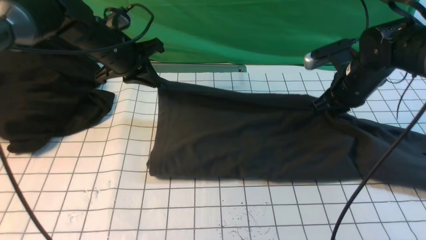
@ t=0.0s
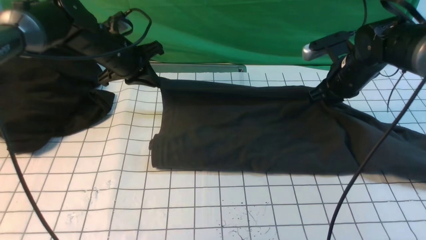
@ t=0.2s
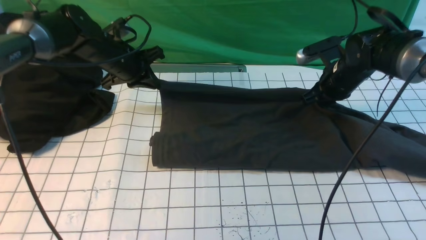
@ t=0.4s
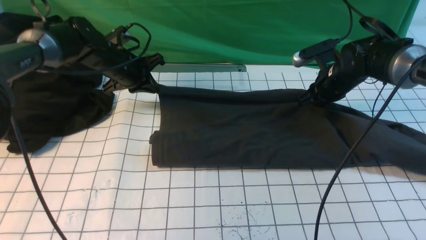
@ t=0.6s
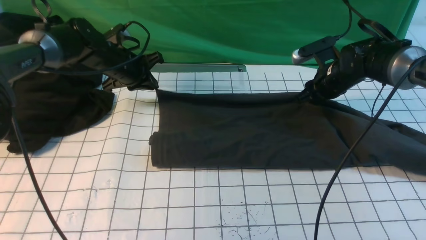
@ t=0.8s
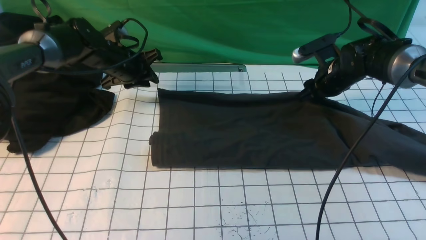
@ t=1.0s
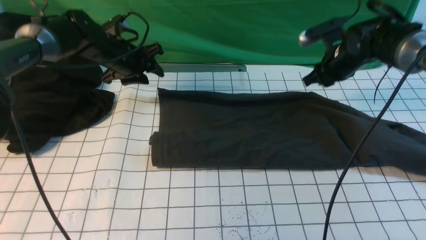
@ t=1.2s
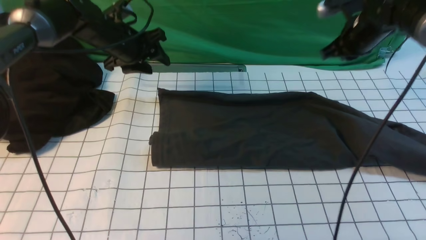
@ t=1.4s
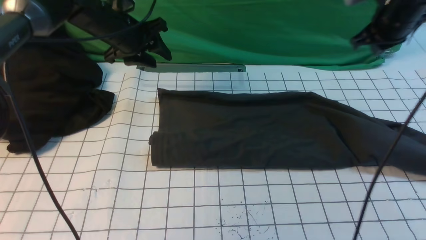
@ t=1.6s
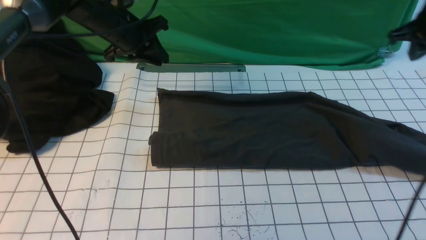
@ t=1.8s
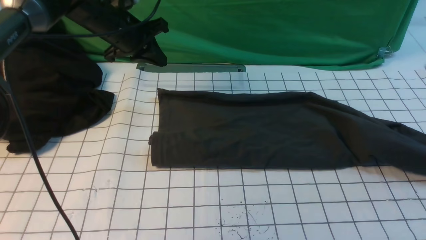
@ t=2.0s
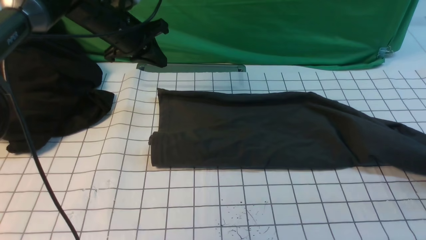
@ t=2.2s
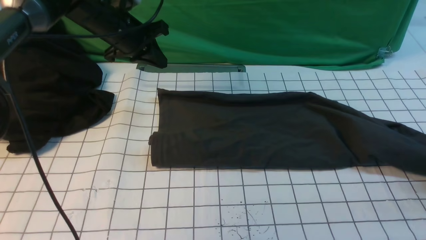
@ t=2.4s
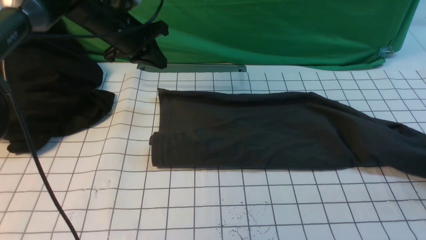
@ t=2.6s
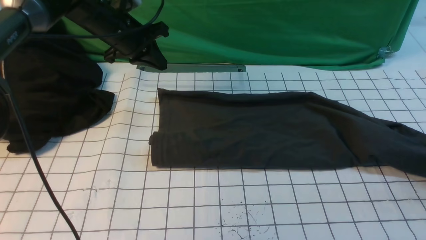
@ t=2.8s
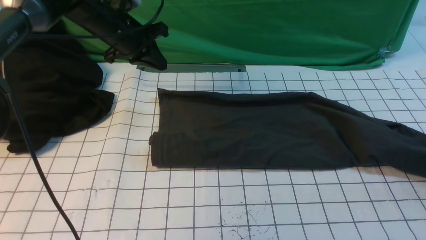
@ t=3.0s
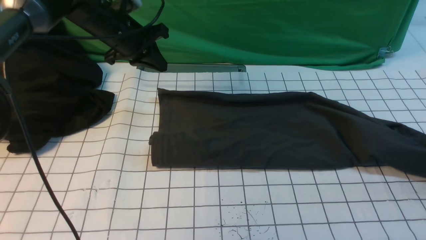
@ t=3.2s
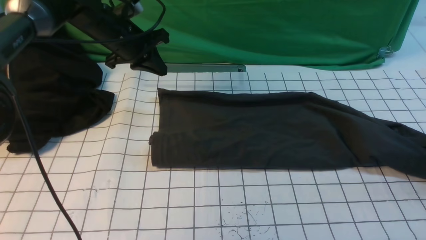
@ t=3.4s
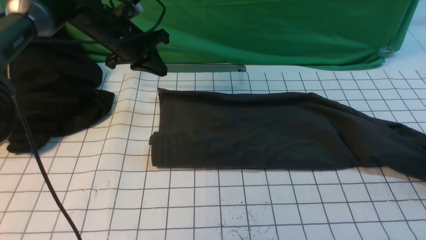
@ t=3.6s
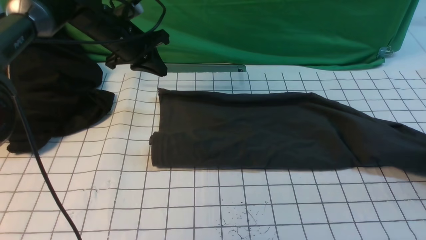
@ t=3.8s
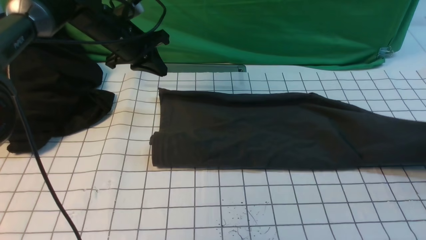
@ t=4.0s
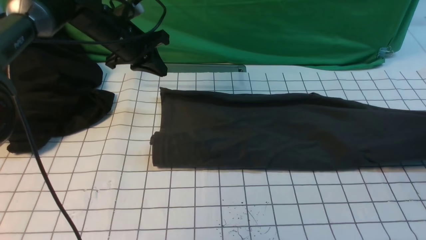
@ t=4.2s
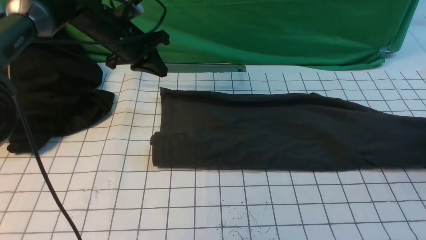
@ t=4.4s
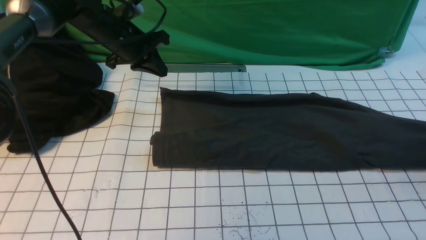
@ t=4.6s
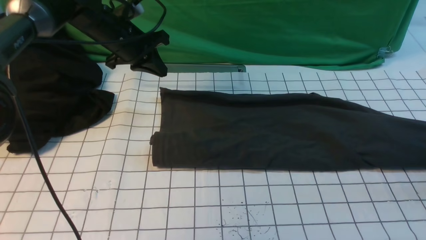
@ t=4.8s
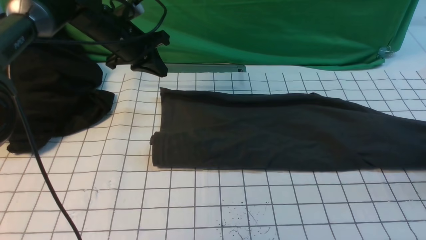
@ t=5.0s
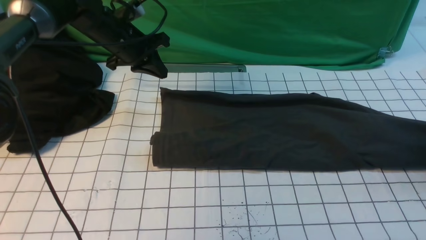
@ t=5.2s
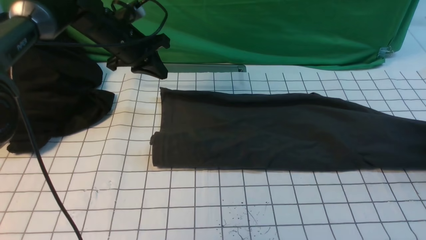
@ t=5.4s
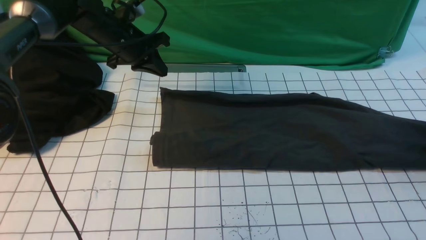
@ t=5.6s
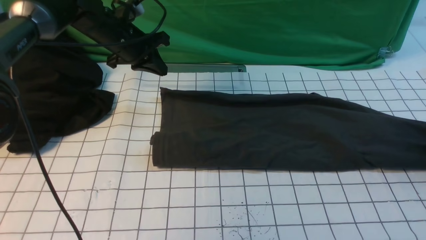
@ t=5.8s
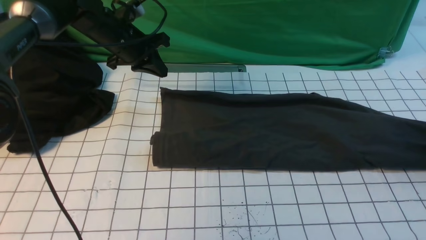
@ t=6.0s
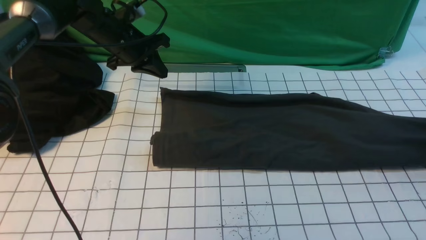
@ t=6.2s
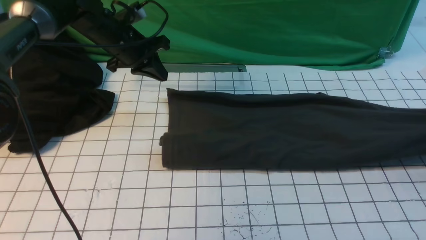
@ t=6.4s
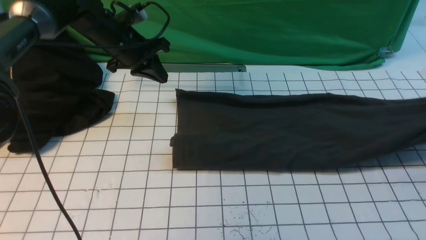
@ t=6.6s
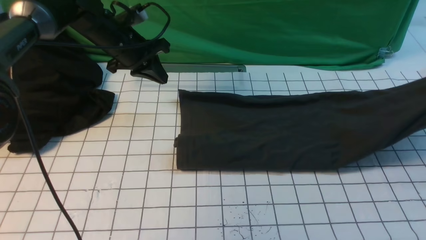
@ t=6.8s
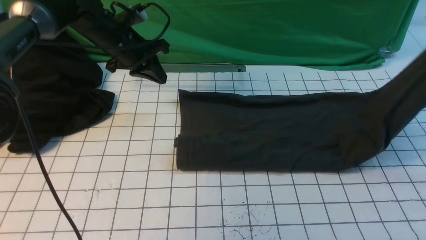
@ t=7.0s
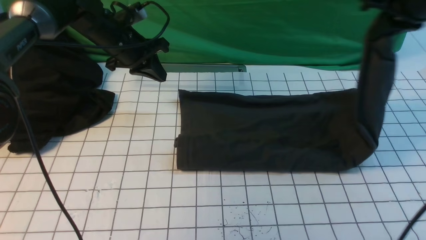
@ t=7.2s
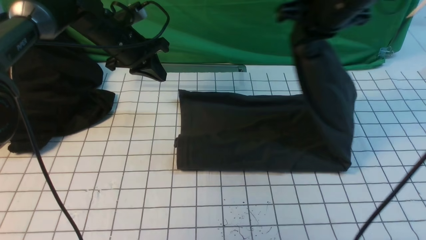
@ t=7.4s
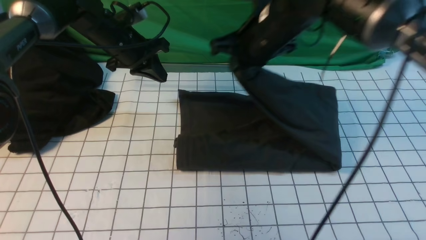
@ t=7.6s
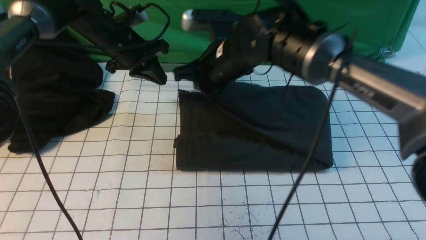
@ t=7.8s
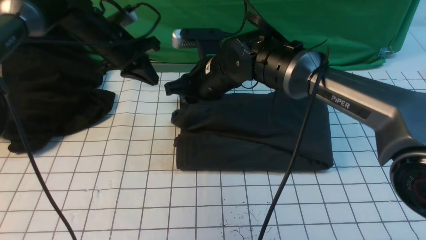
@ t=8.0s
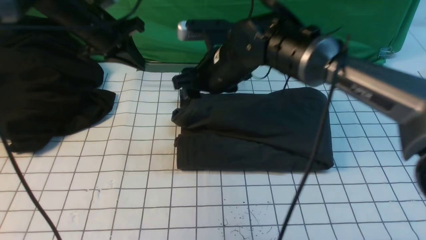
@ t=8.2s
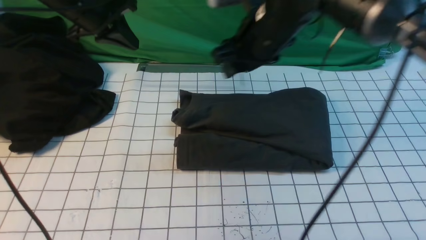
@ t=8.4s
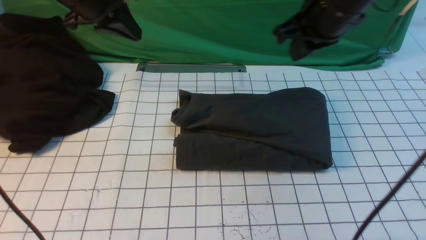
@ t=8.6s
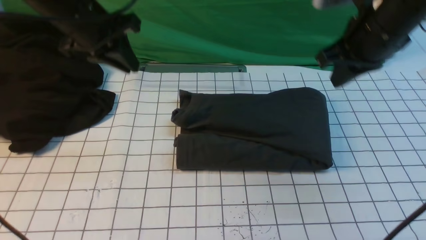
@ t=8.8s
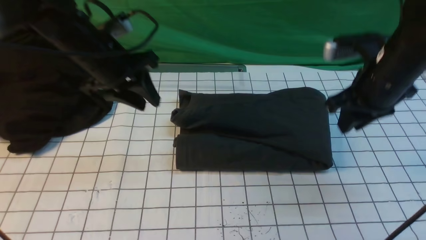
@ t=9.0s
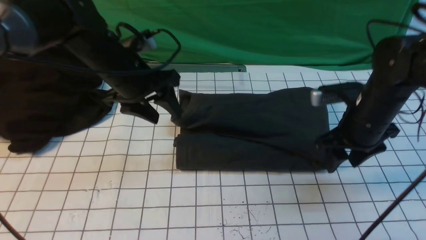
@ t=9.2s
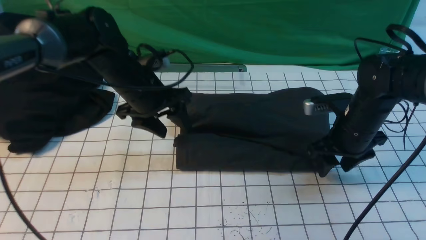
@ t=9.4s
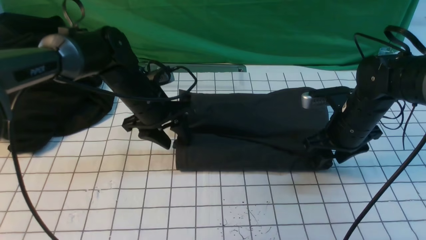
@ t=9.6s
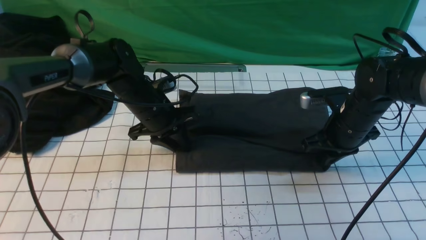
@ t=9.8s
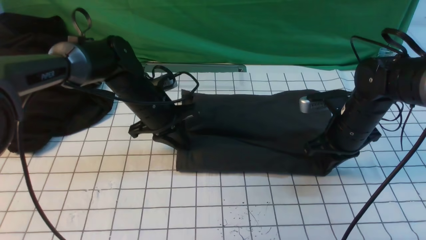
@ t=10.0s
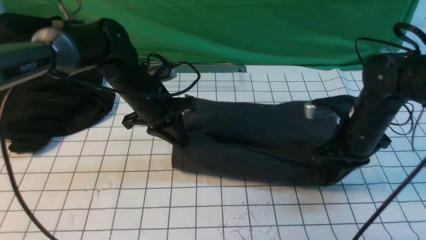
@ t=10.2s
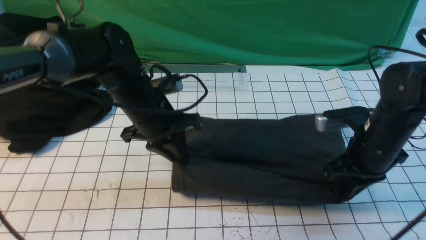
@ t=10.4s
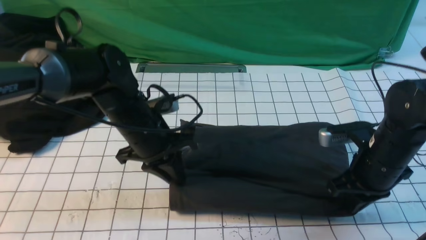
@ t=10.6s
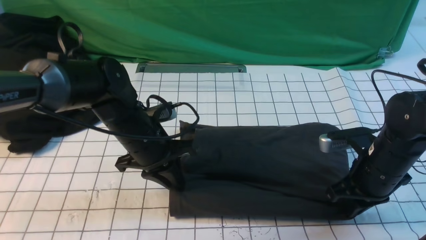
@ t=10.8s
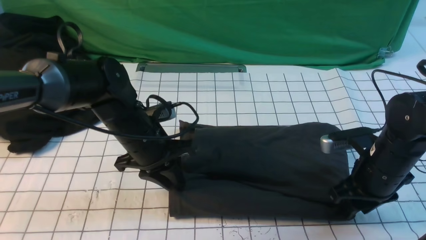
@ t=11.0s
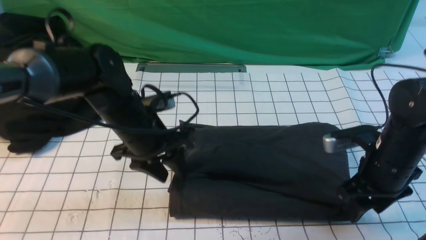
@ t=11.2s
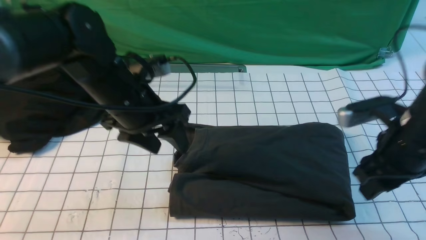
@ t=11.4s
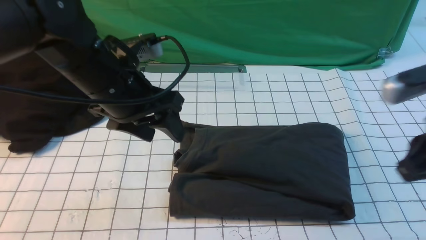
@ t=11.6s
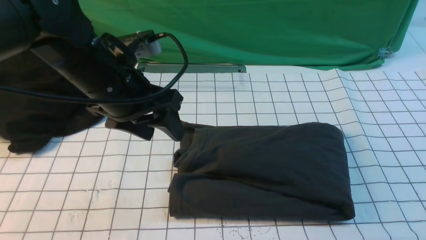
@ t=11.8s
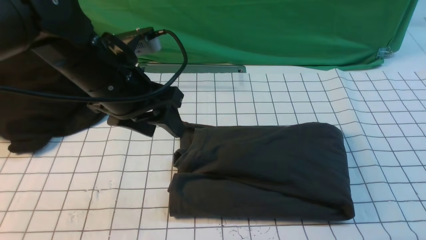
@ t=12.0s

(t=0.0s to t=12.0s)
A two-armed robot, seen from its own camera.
Step, t=1.2s - t=6.0s: use the right arm to clamp the right edge of the fabric.
Step, t=6.2s - t=8.0s: use the right arm to drag the right edge of the fabric to the left and folds it over the left edge.
t=0.0s - t=1.6s: The right gripper moves upward, to the right and forward, approximately 15 cm, and opens and closes again, while the left gripper opens.
t=1.6s - t=3.0s: The left gripper closes its fingers, while the right gripper shifts some 20 cm to the right, downward and backward, and opens its fingers.
t=3.0s - t=4.4s: The right gripper closes, then opens again.
t=6.0s - t=7.6s: The right gripper moves to the left, approximately 40 cm.
t=7.6s - t=9.0s: The right gripper travels to the right by about 15 cm, and opens up; the left gripper is displaced backward by roughly 10 cm, and opens.
t=9.0s - t=10.4s: The right gripper shifts roughly 10 cm downward, and closes; the left gripper goes about 10 cm downward and to the right, and closes up.
t=10.4s - t=12.0s: The left gripper is displaced upward and backward by about 10 cm, and opens up. The right gripper shifts some 30 cm backward and upward, and opens, then closes again.

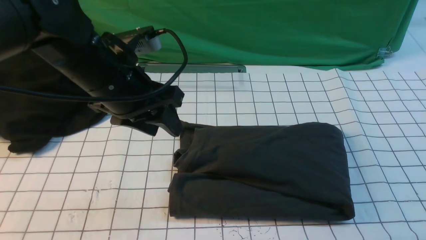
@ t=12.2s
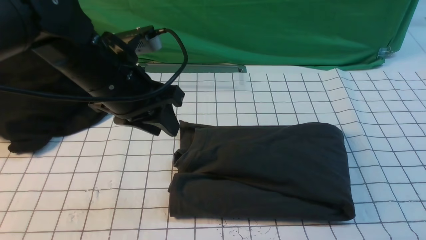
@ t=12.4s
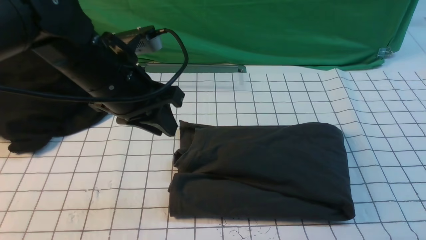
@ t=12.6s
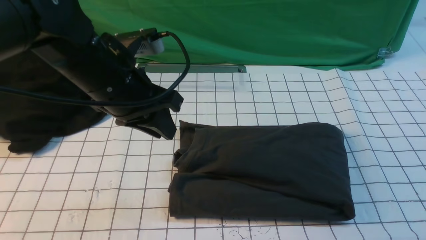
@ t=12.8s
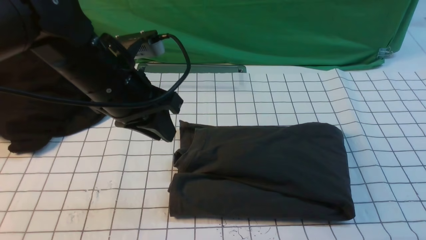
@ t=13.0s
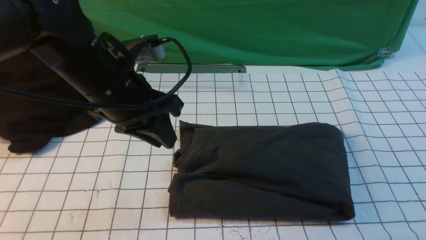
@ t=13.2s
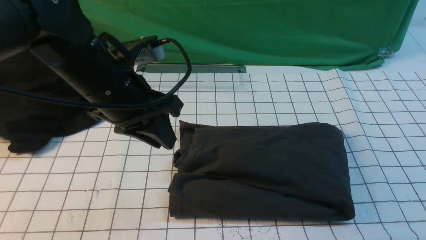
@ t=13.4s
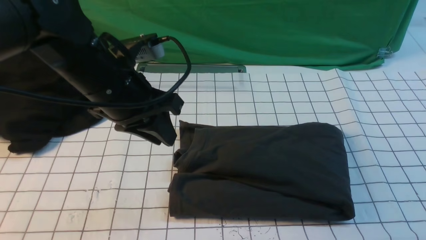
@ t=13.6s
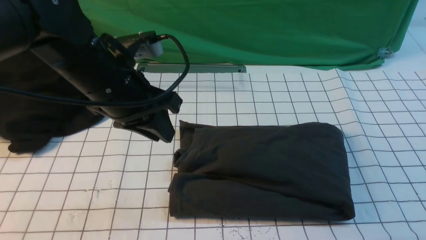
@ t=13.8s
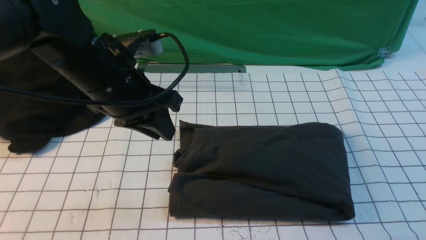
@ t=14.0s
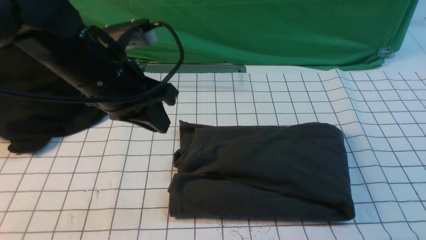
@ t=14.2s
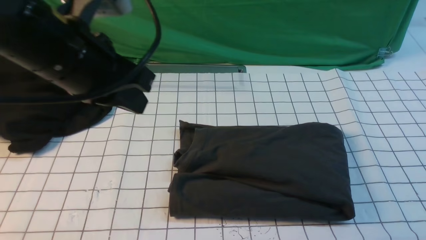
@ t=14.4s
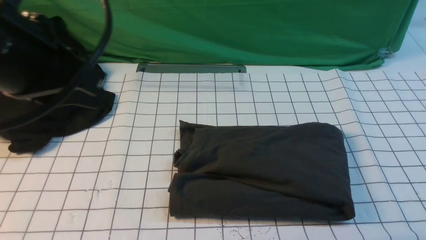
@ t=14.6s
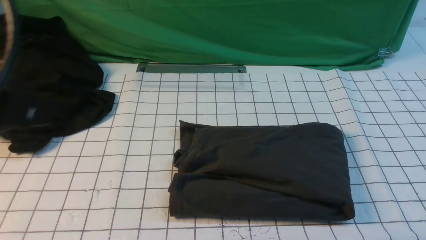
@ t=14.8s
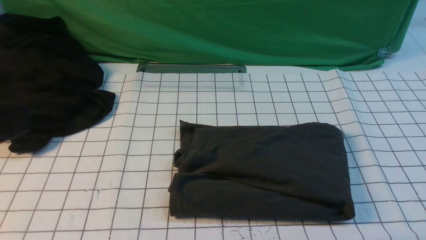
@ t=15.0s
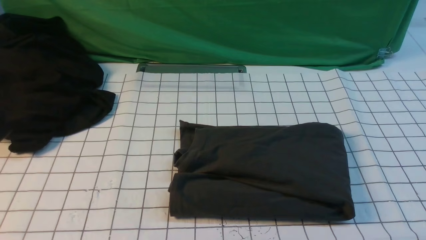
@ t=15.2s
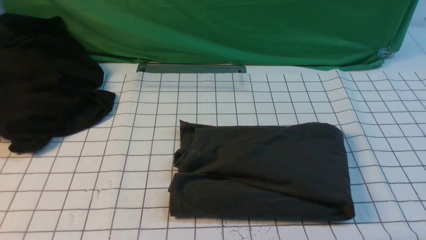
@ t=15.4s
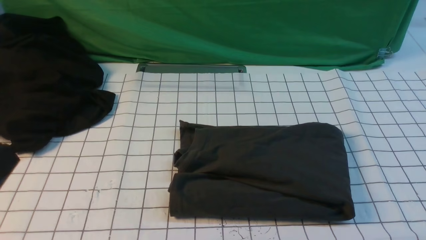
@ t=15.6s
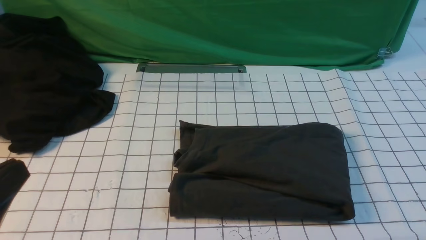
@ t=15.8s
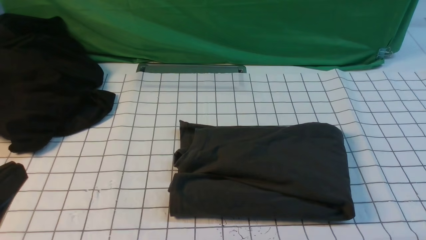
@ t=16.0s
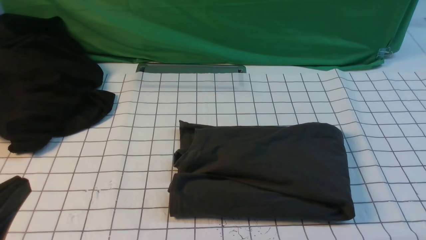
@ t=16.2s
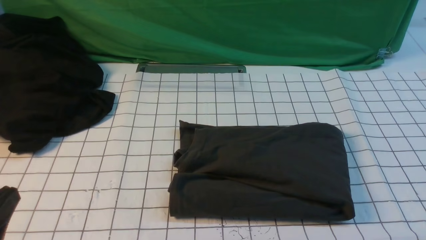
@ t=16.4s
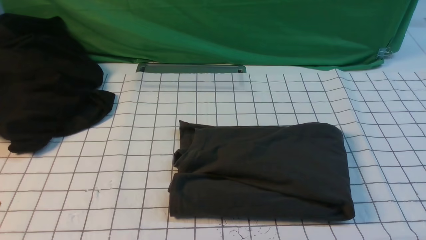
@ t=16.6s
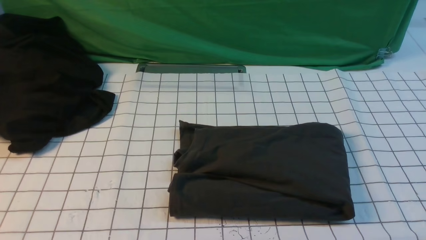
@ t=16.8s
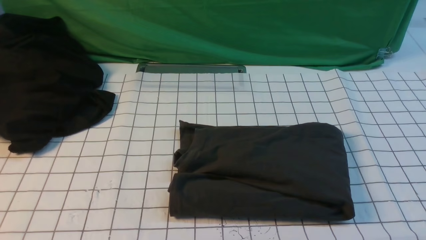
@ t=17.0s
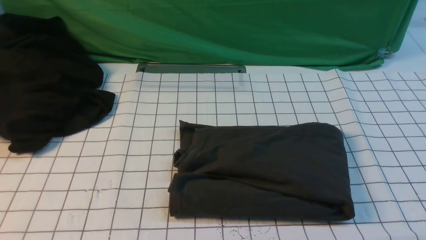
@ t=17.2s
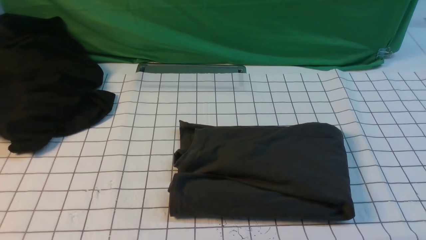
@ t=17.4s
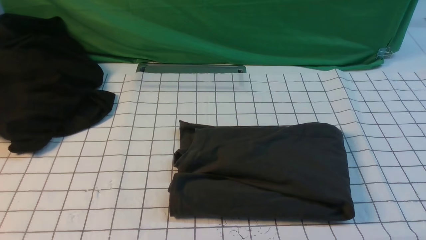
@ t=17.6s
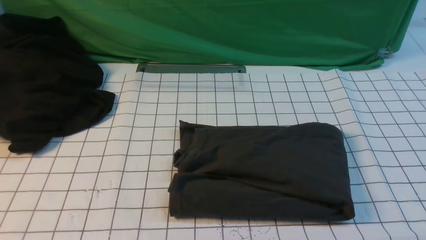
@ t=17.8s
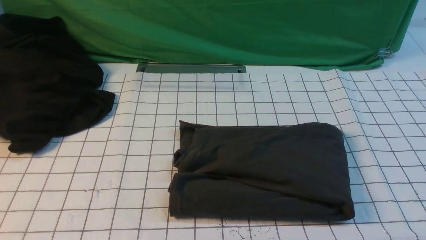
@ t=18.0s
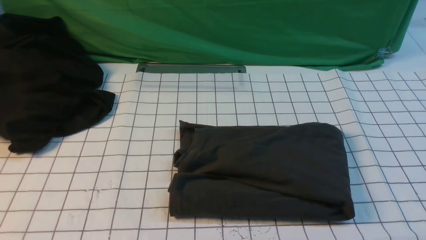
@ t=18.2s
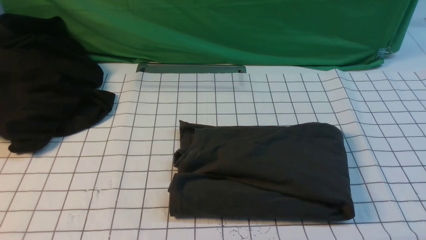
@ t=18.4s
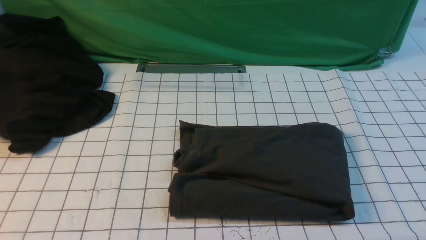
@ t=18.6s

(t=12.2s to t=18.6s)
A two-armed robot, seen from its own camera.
t=12.2s - t=13.8s: The right gripper is displaced downward by some 15 cm.
t=13.8s - t=15.4s: The left gripper shifts some 25 cm backward and to the left, and closes.
t=17.0s - t=18.6s: The two grippers keep their place.
